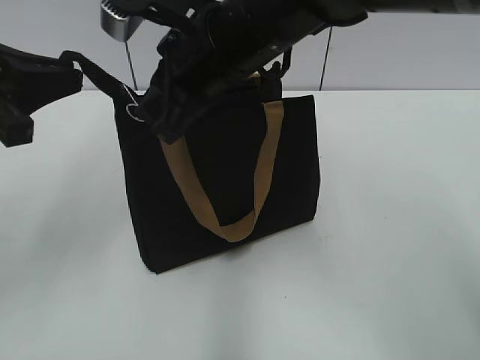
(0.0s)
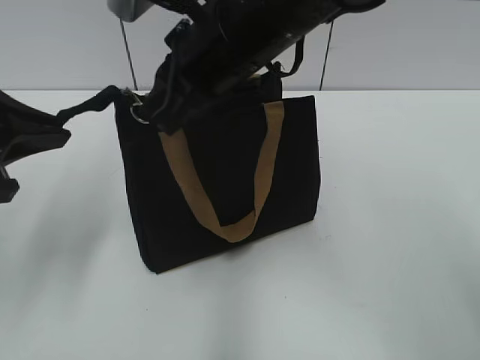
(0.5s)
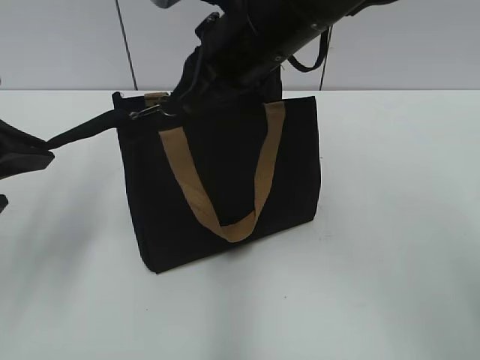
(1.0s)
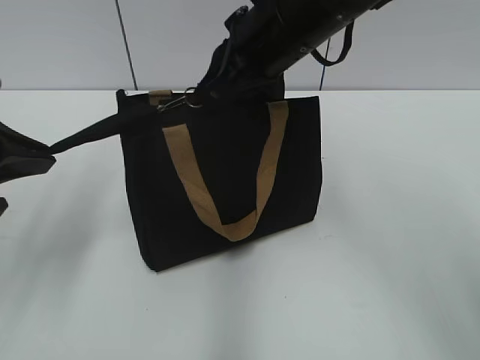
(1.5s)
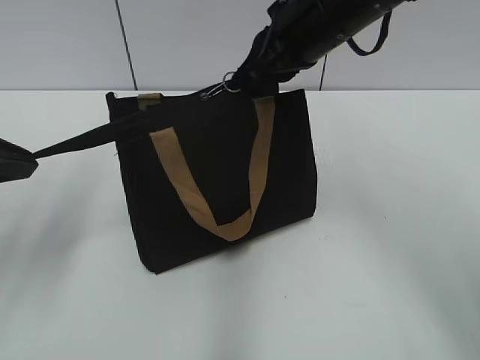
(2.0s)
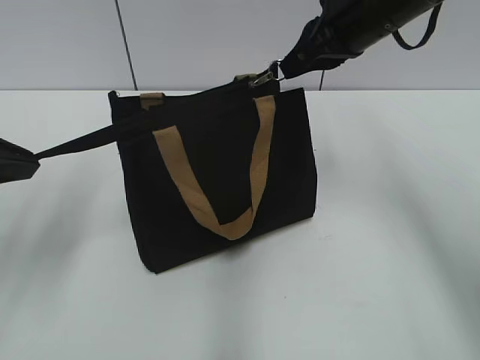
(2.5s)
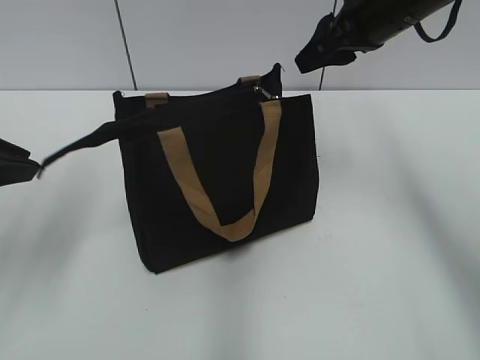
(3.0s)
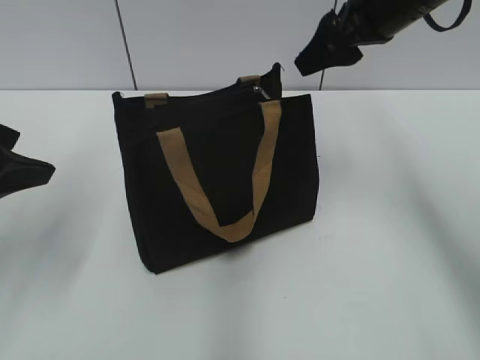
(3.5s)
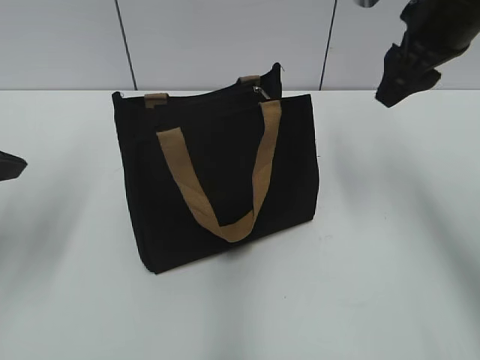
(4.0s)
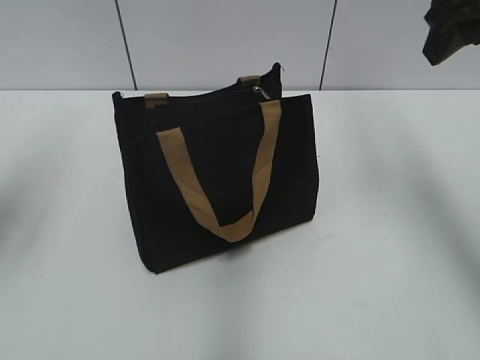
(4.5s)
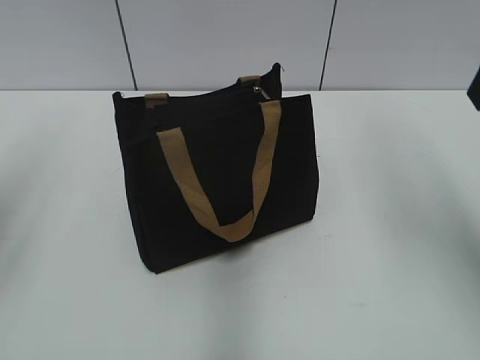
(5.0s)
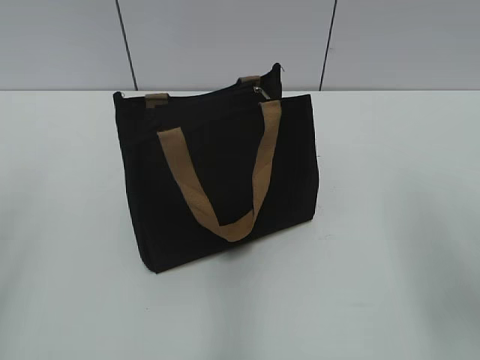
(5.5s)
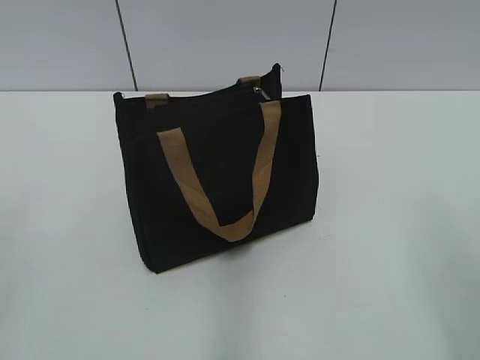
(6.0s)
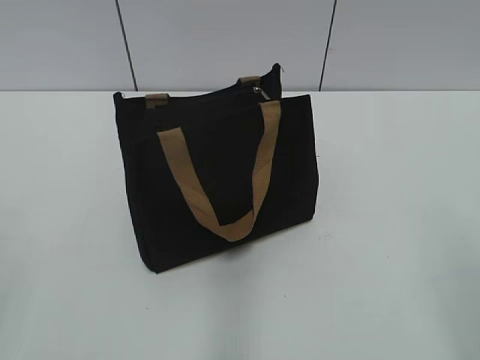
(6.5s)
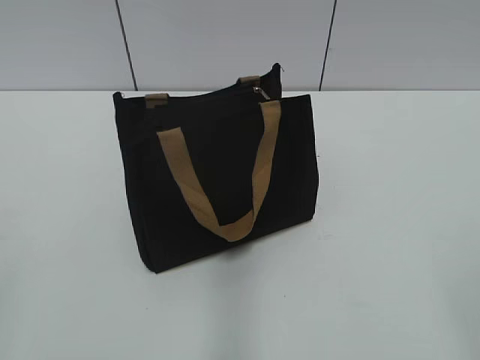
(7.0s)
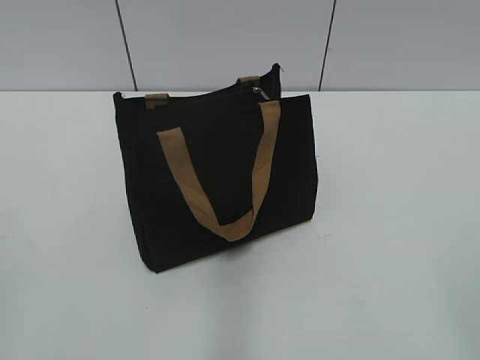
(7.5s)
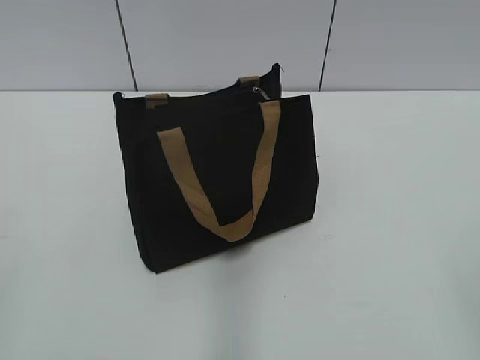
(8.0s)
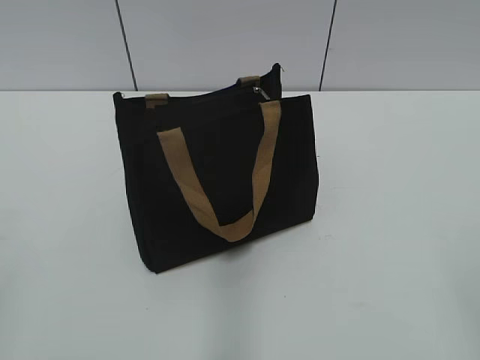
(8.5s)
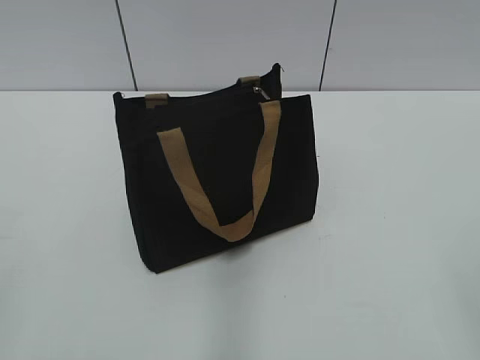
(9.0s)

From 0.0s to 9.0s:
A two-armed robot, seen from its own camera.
Step, from 0.0s to 2.5s: Zip up the bag with your right hand.
Step, from 3.0s to 3.5s: Grab the zipper with your left hand.
From 0.0s to 2.0s: The right gripper is displaced to the right and forward by roughly 10 cm.
From 2.0s to 4.5s: The right gripper is displaced to the right and upward by approximately 15 cm, and opens up. Meanwhile the left gripper heads upward, covering about 5 cm, and opens up.
From 4.5s to 7.0s: The two grippers go about 30 cm backward.

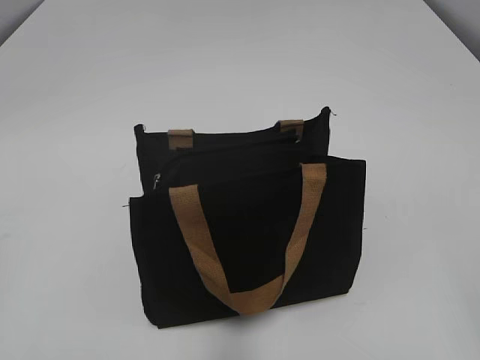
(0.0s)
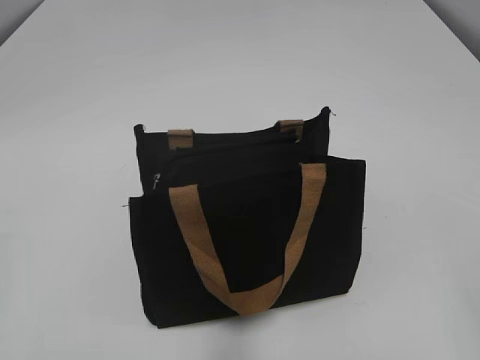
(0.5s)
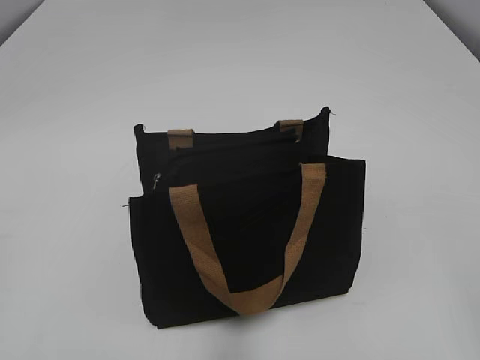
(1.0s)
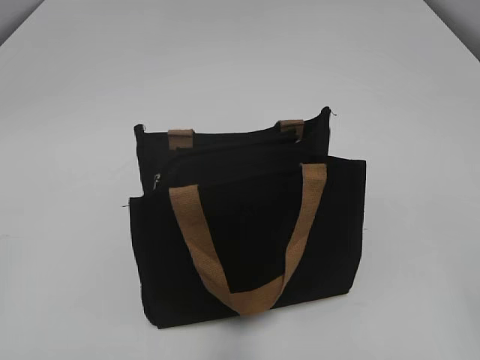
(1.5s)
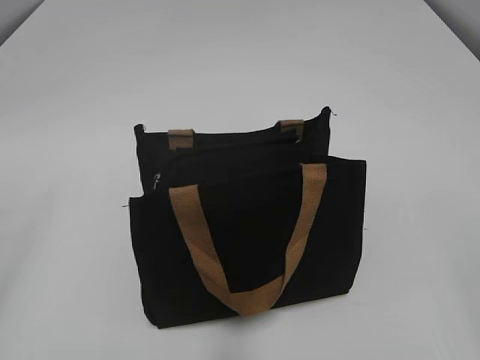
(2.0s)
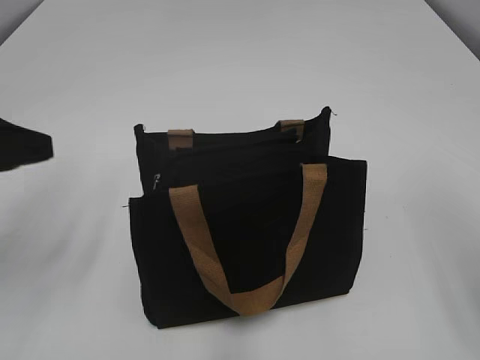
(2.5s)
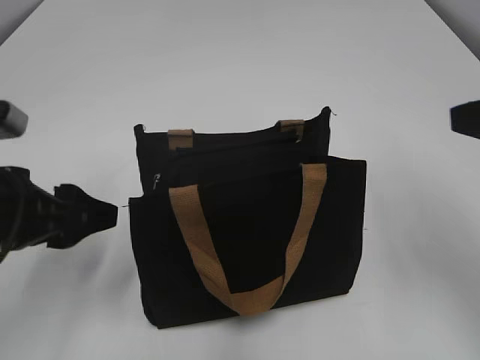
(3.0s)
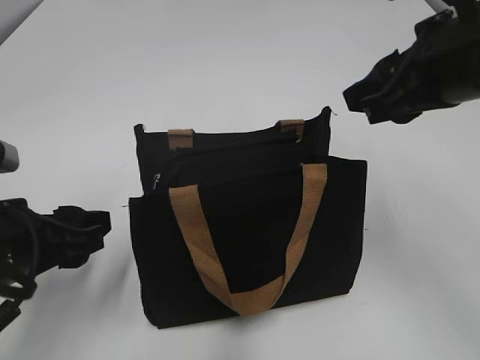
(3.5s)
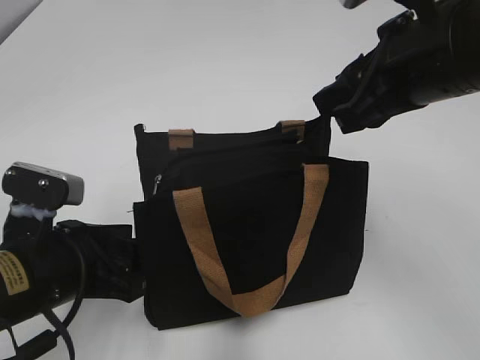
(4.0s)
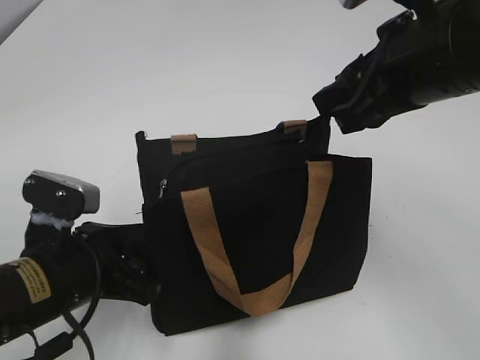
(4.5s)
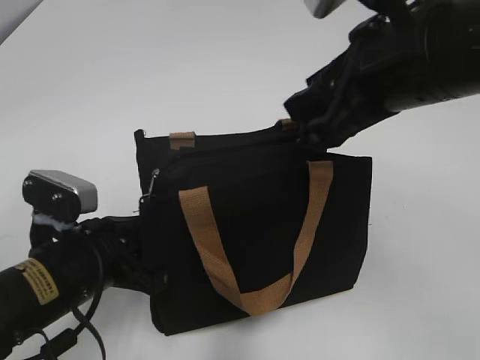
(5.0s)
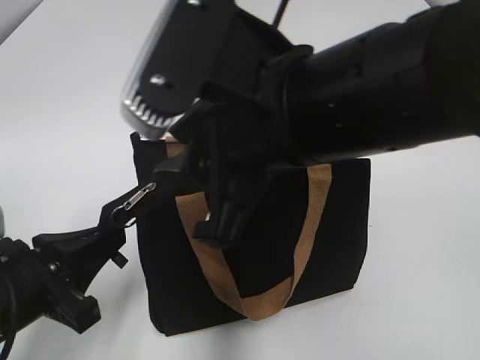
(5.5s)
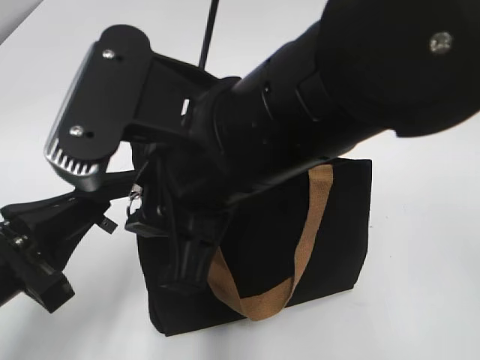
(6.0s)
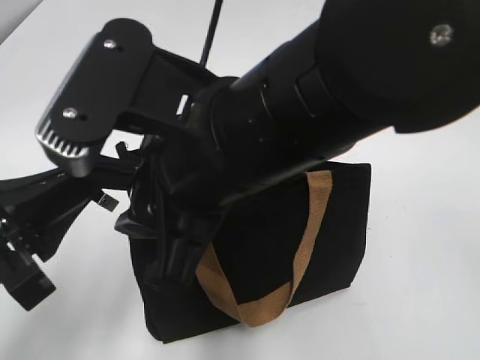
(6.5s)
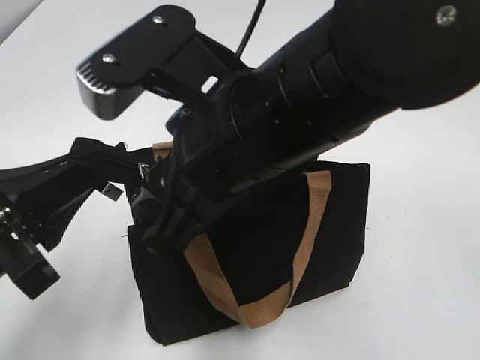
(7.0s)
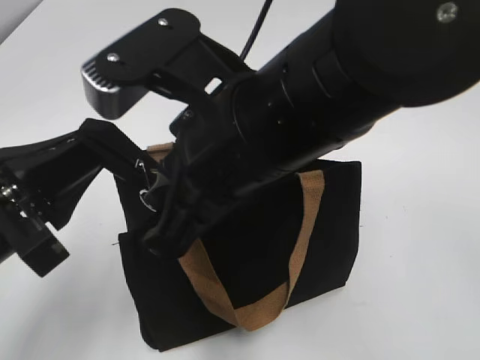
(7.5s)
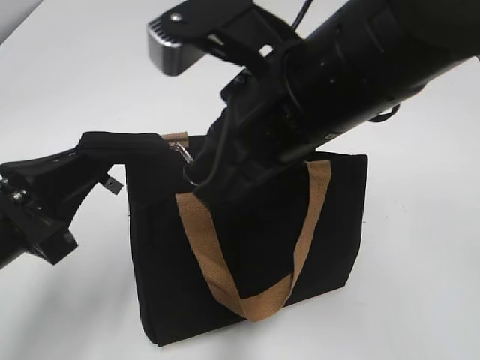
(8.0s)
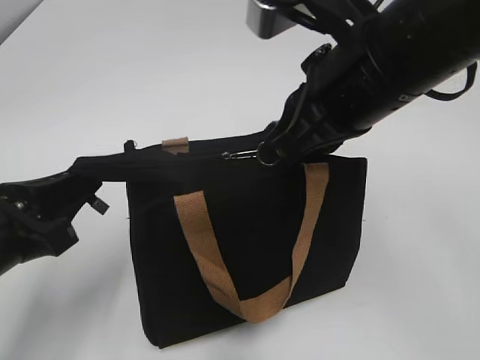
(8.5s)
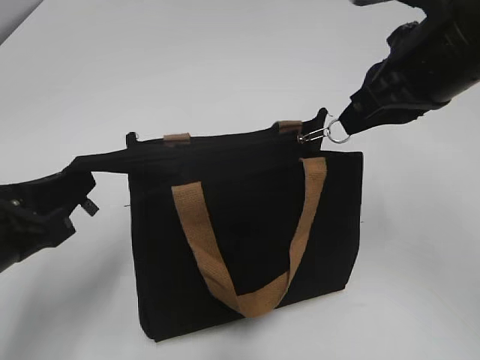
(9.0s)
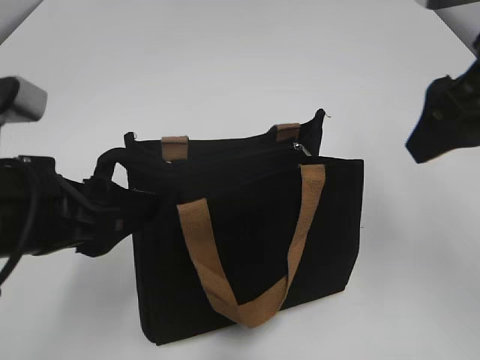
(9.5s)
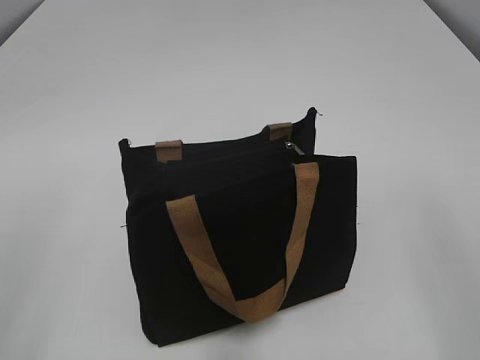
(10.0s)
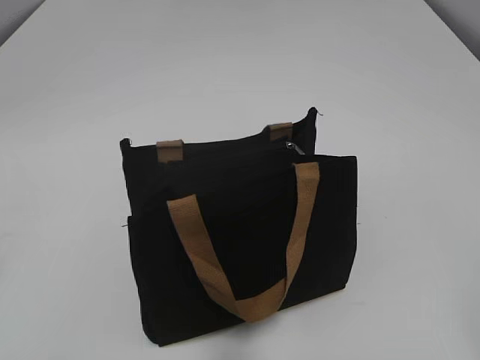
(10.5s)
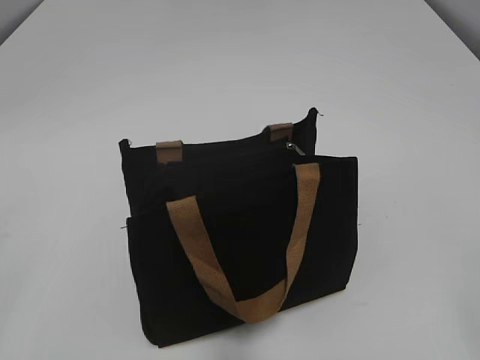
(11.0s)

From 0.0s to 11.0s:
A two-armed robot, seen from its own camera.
Step, from 0.0s to 9.0s: Zip up the bag with your right hand.
From 2.0s to 3.5s: The left gripper goes approximately 20 cm downward, forward and to the right. The right gripper shifts about 25 cm forward and to the left.
From 3.5s to 5.5s: The left gripper closes. Meanwhile the right gripper goes roughly 15 cm to the left.
From 5.5s to 7.5s: The left gripper shifts roughly 10 cm upward; the right gripper closes.
From 7.5s to 9.0s: The right gripper goes approximately 15 cm to the right and forward.
From 9.0s to 11.0s: The left gripper is displaced backward, to the left and upward by roughly 20 cm, and opens. The right gripper travels backward and to the right by some 30 cm, and opens its fingers.

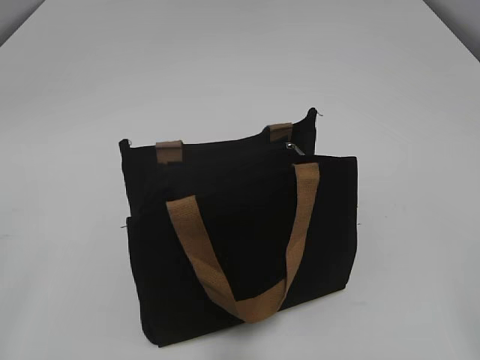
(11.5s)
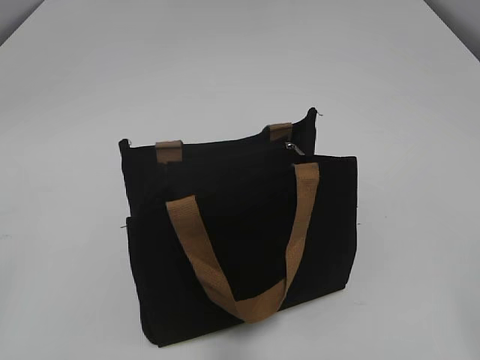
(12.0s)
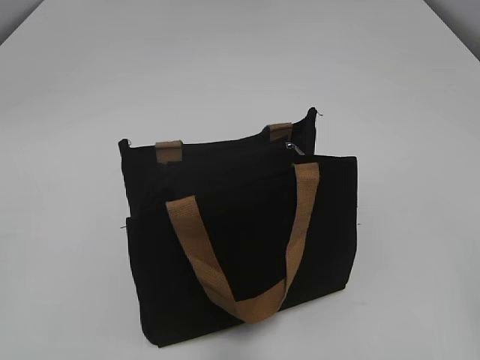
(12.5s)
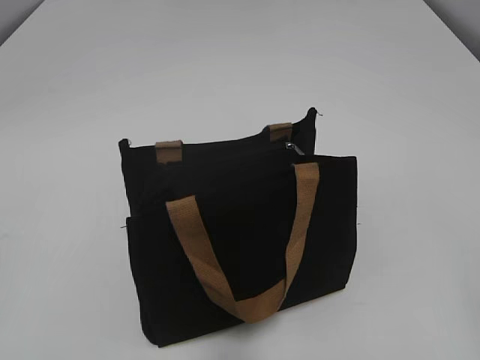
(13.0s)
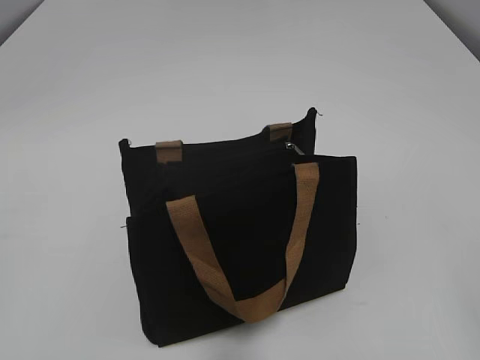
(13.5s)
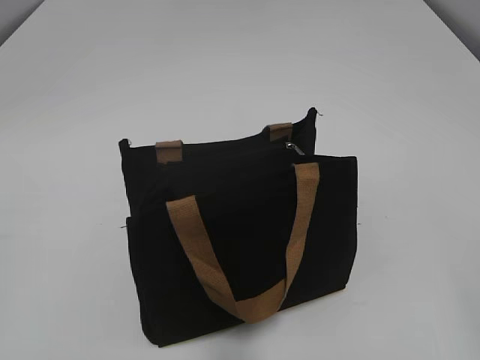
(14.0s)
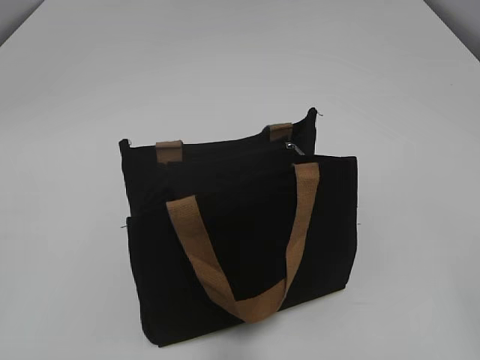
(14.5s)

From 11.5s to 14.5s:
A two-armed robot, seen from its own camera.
From 13.0s to 14.5s: The two grippers keep their place.

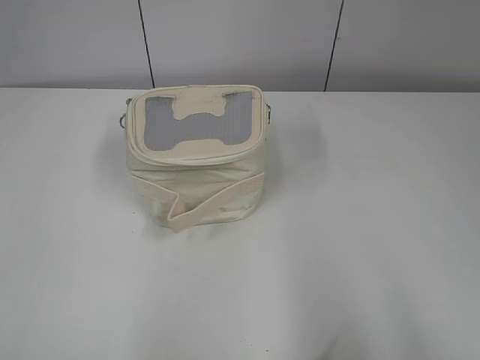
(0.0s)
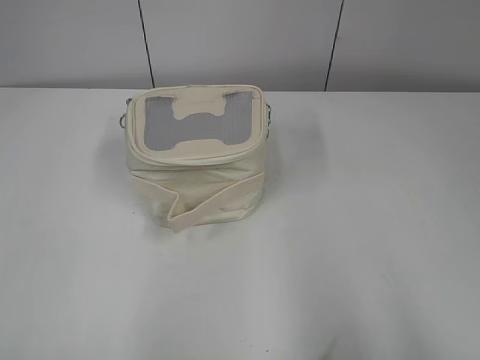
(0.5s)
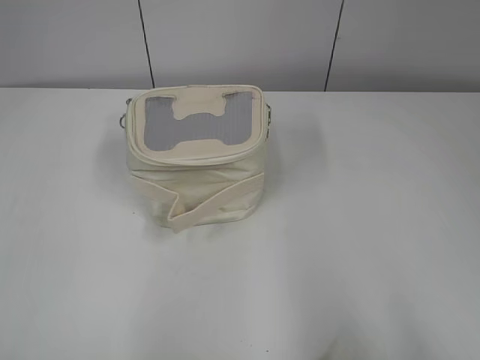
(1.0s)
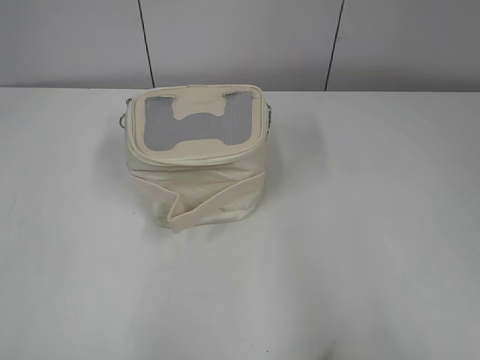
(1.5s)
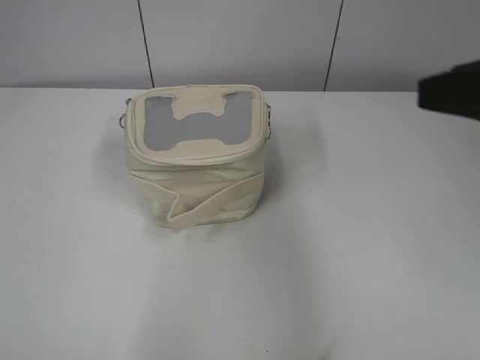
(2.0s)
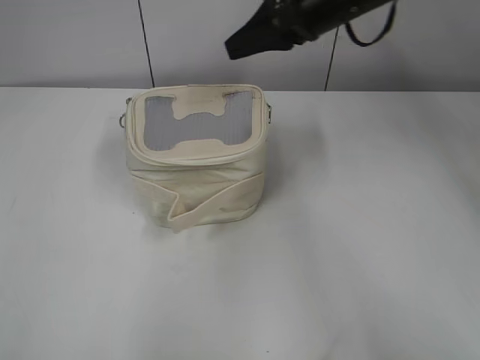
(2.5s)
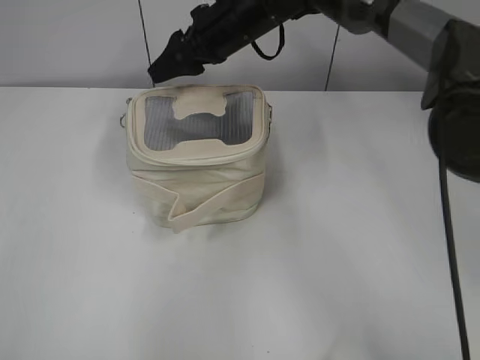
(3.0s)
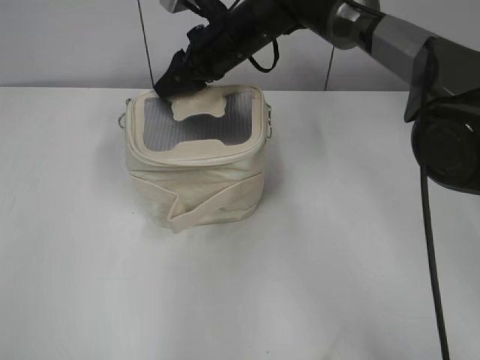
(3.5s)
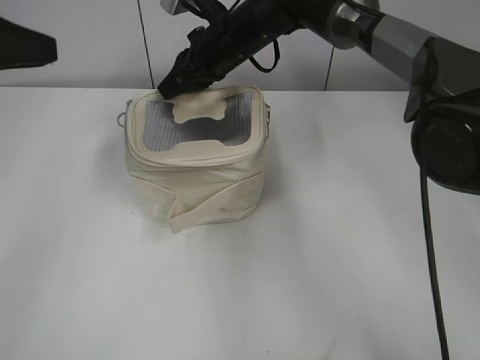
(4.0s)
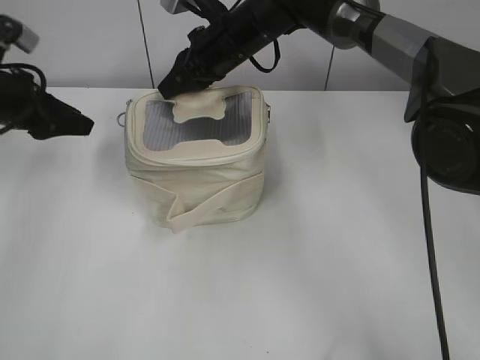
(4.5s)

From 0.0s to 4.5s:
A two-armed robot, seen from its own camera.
From 2.0s to 4.5s: The left gripper goes approximately 35 cm forward. The right gripper travels forward, to the left and downward by roughly 40 cm, and closes up.
